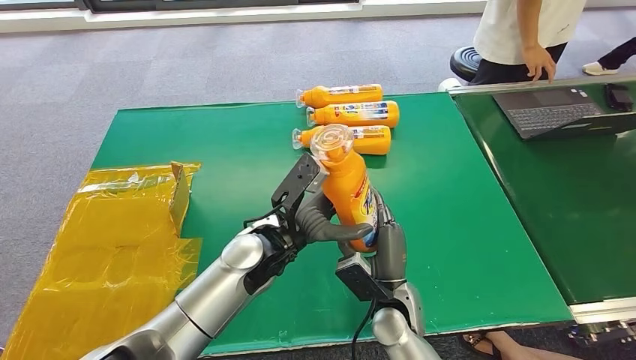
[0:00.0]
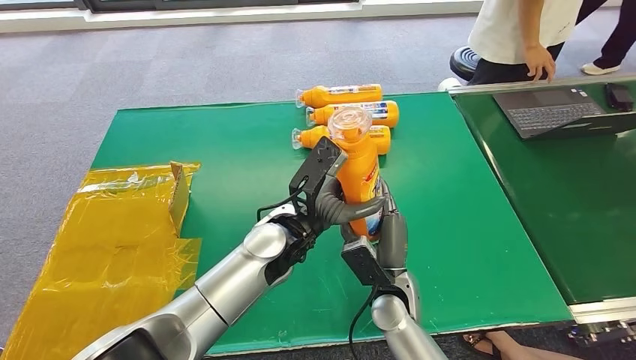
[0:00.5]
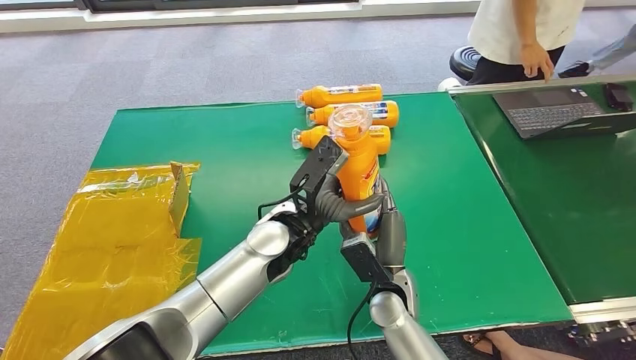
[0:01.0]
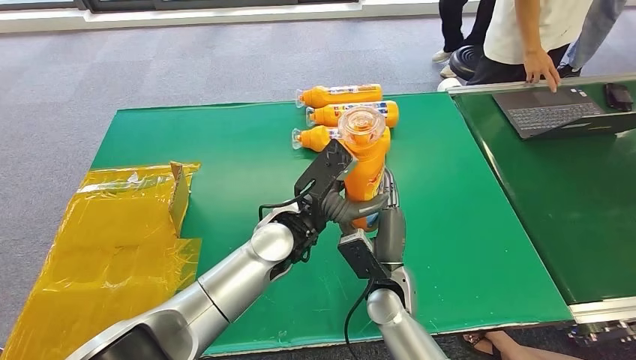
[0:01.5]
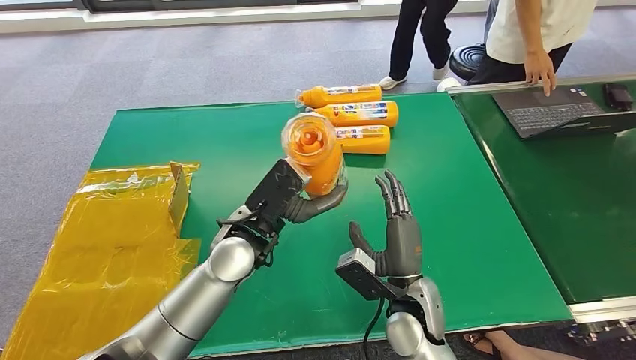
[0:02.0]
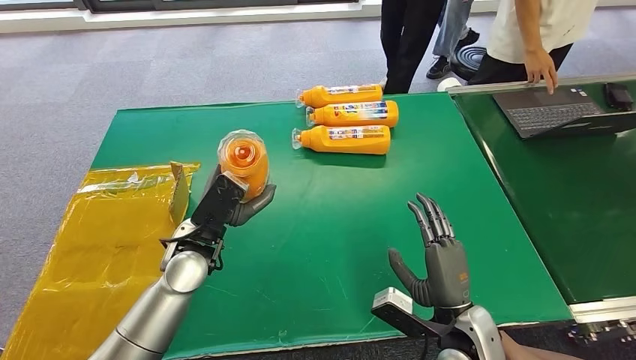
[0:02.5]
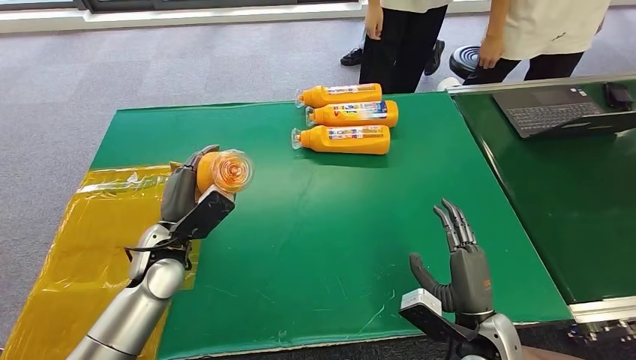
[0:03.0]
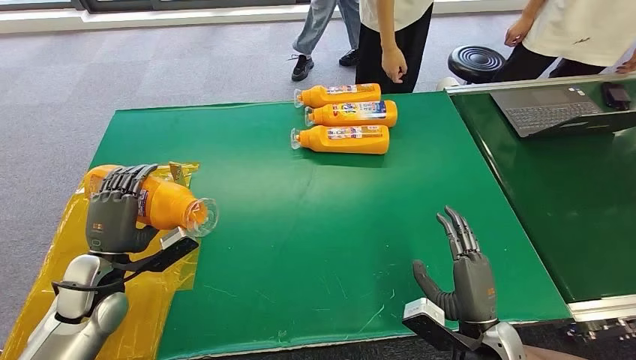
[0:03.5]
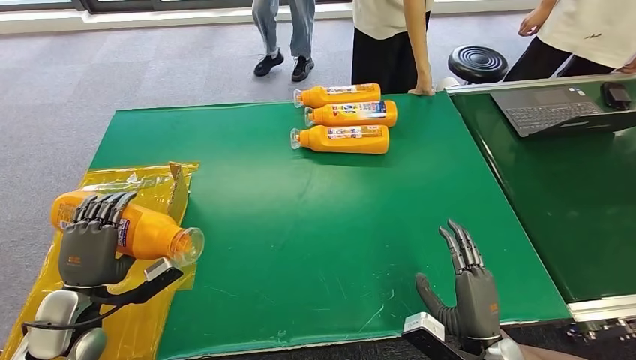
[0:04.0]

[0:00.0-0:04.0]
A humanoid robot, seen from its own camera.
Step, 0:00.0 to 0:03.5: Turn the bottle to the front side.
0:00.0 to 0:02.0: The right hand moves approximately 5 cm.

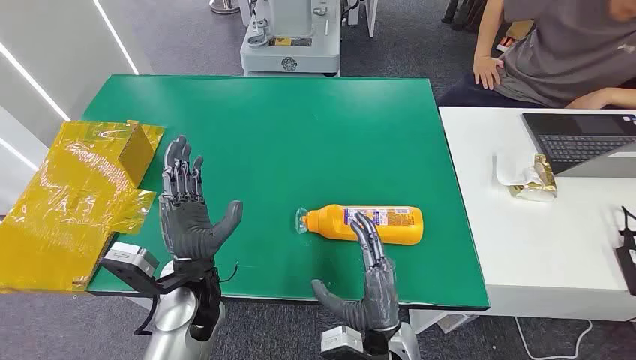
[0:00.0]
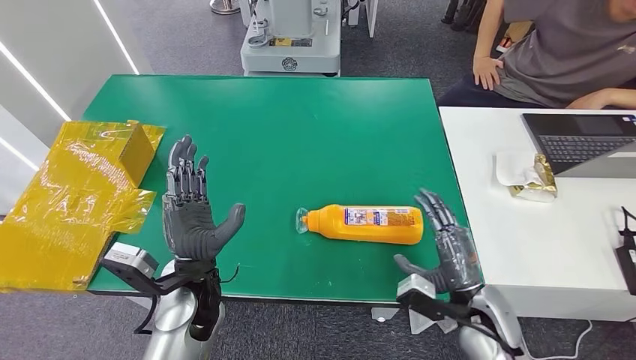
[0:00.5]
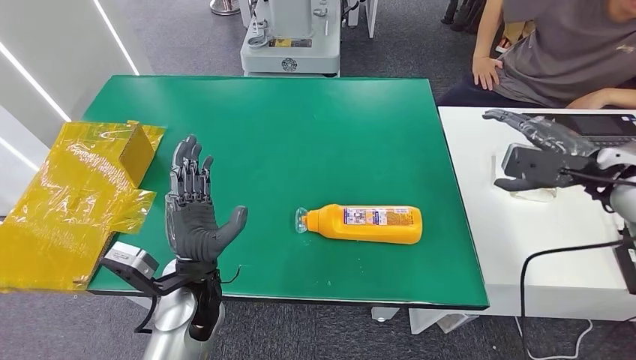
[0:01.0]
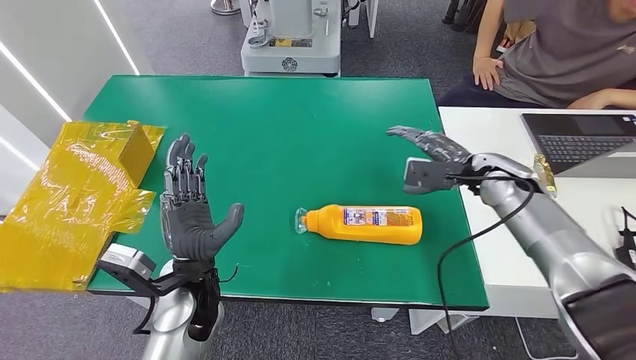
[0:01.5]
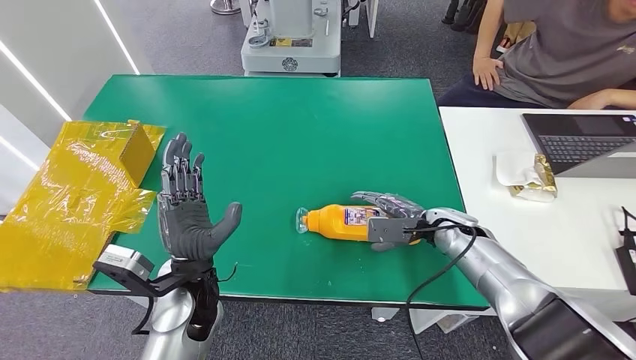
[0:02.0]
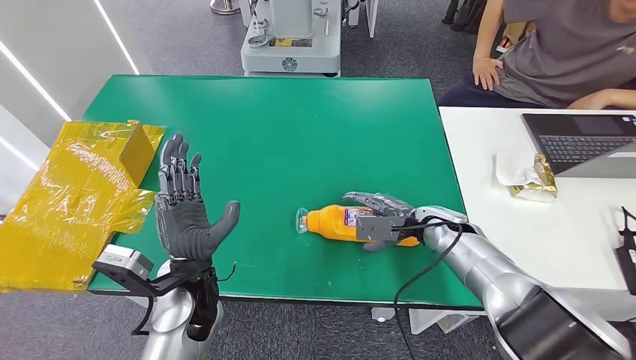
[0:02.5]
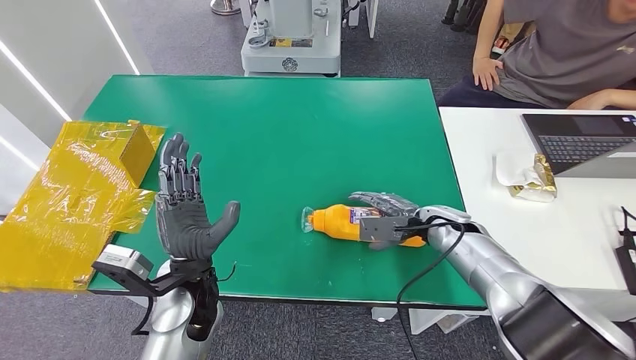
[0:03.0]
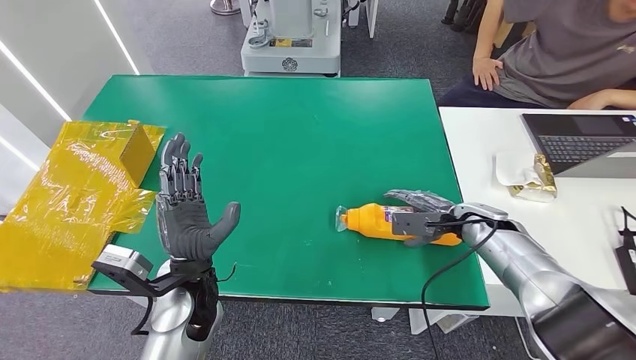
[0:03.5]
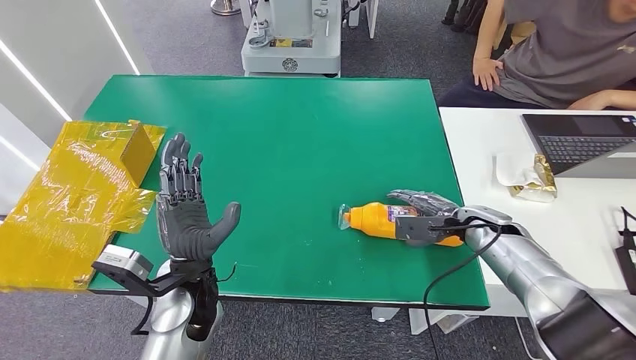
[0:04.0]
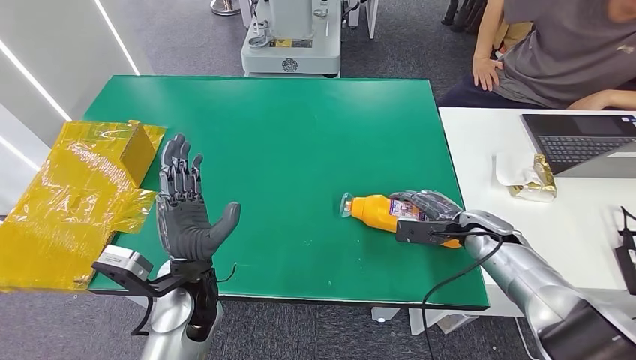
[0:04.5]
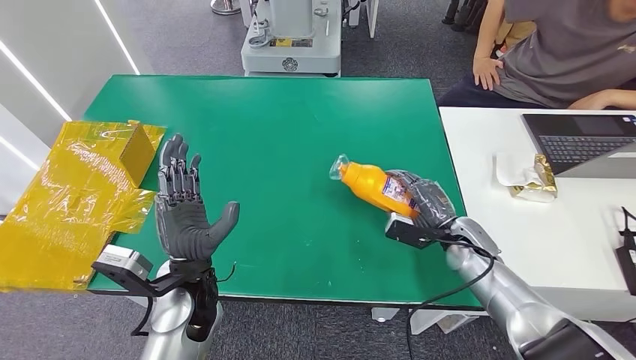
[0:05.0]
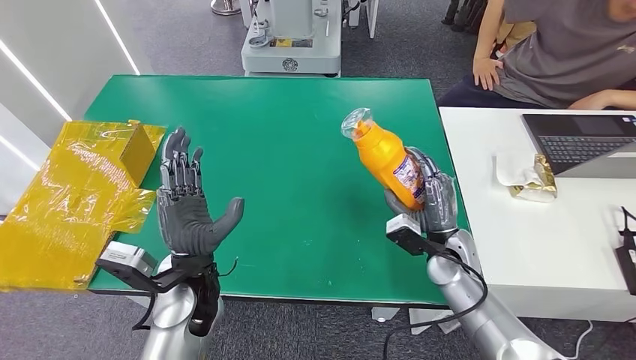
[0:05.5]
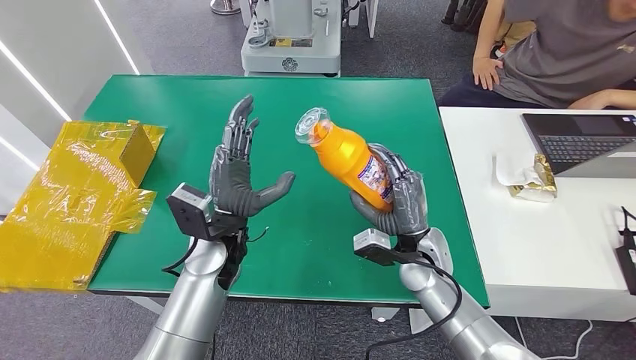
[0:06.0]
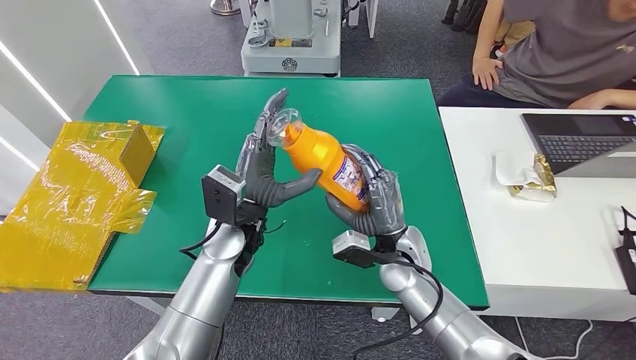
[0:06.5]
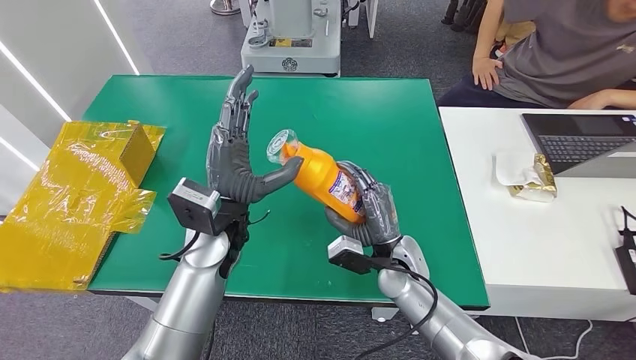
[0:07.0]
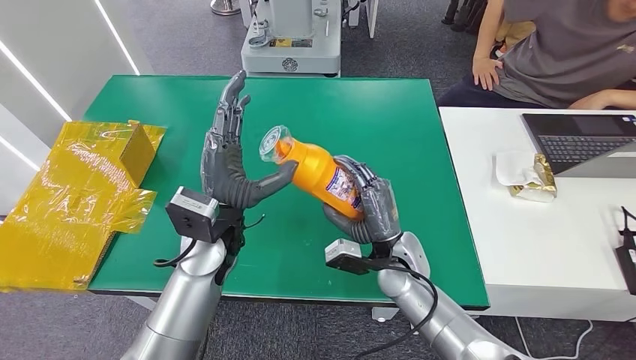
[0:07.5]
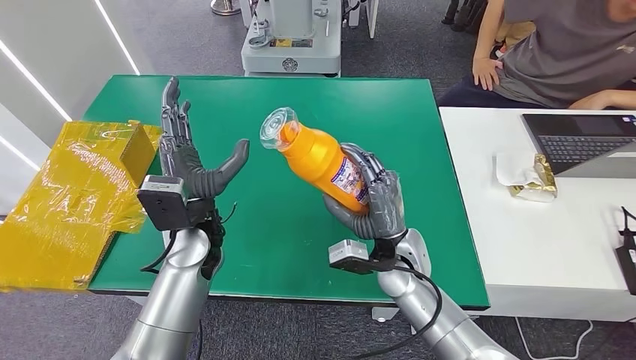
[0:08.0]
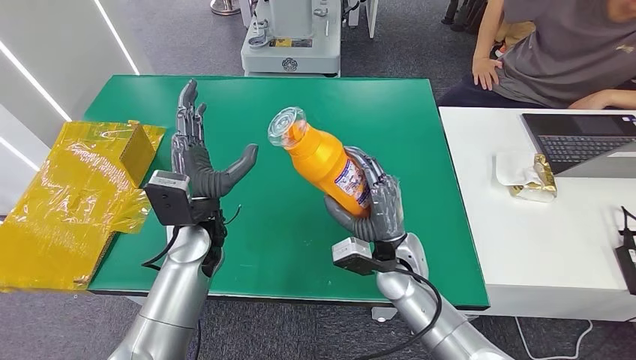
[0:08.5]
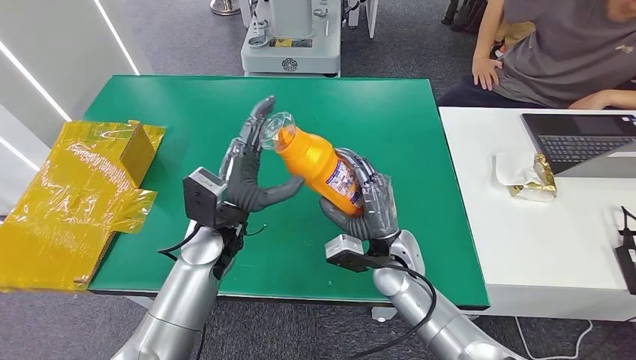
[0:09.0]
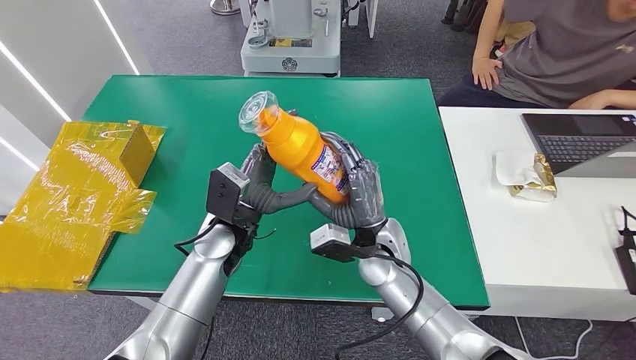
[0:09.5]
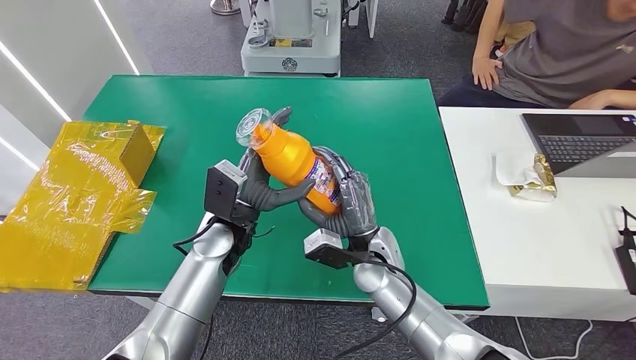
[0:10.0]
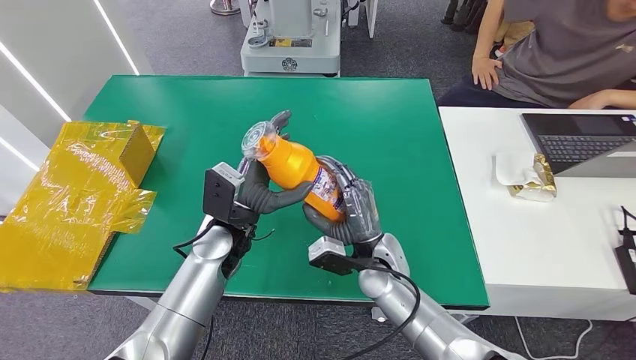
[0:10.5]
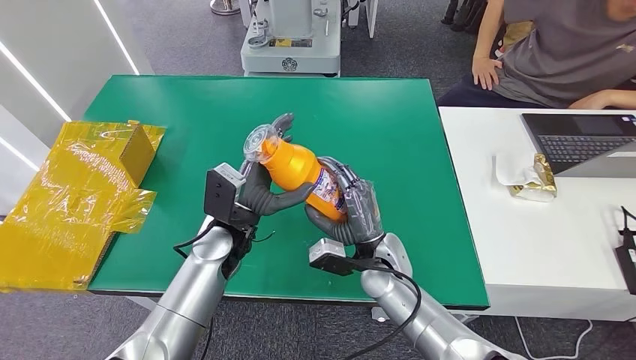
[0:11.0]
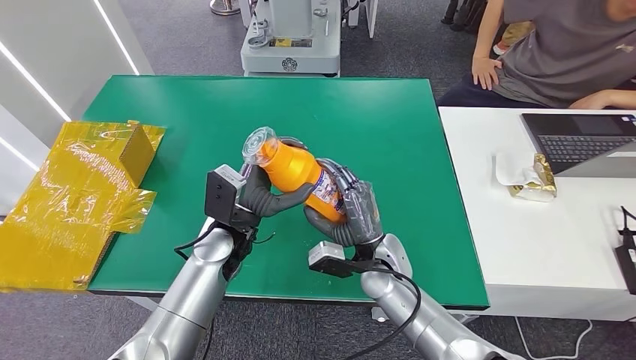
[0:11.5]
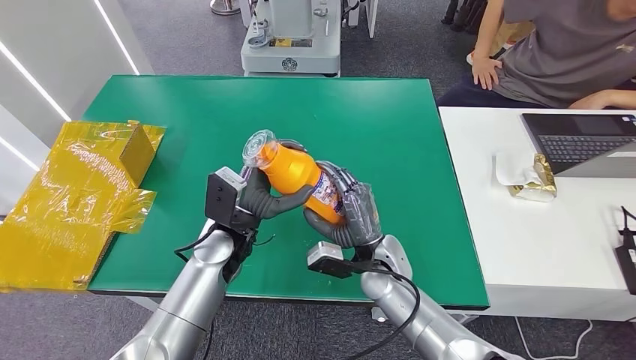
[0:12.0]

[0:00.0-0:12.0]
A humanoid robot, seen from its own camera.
Step, 0:00.0 to 0:06.5: Pick up the bottle from the table.
0:02.0 to 0:04.0: The right hand is displaced to the right by about 5 cm.
0:04.0 to 0:06.0: The left hand heads forward, covering about 5 cm, while the right hand moves to the left, approximately 15 cm.
0:06.0 to 0:08.0: The right hand shifts by roughly 5 cm.
0:10.0 to 0:12.0: The hands make only small movements.

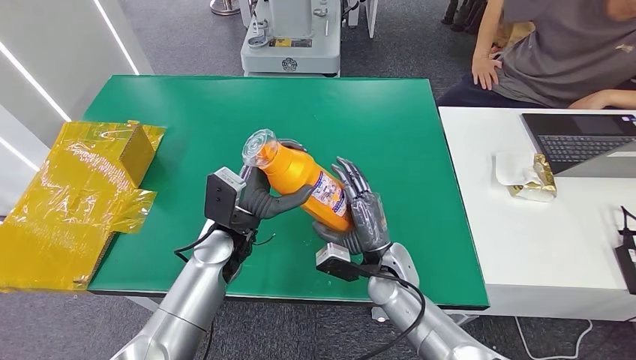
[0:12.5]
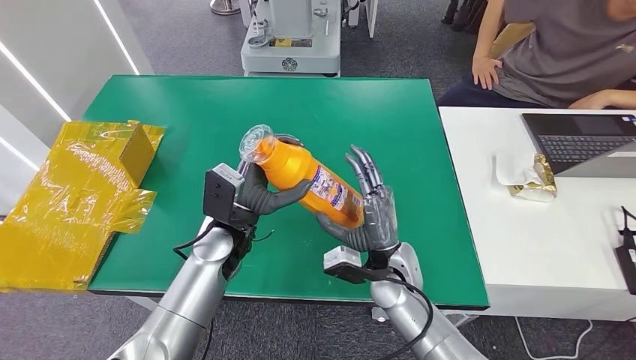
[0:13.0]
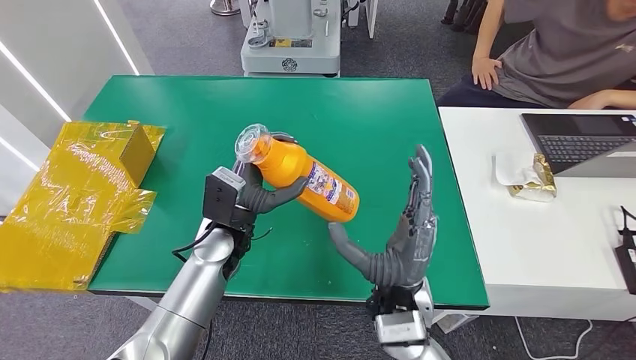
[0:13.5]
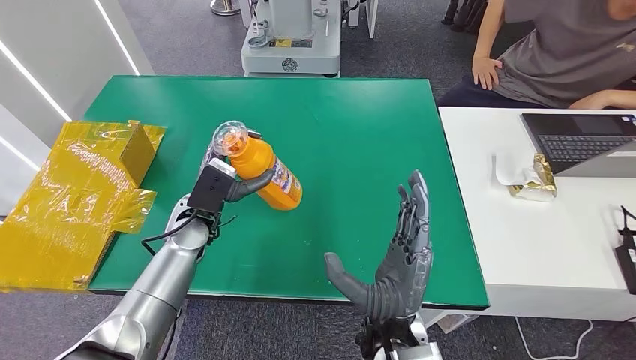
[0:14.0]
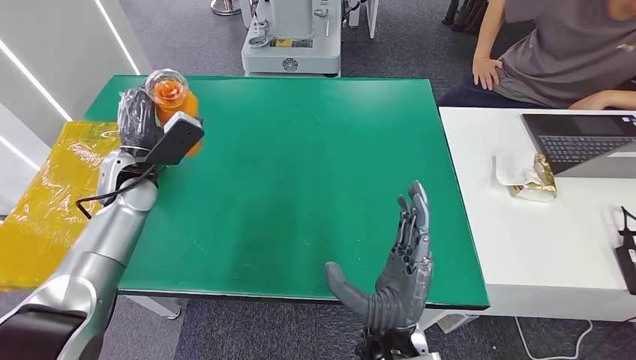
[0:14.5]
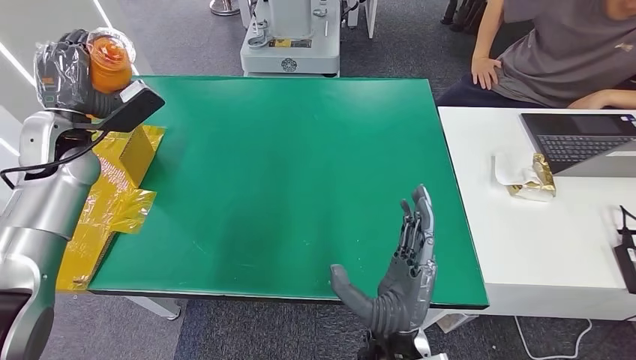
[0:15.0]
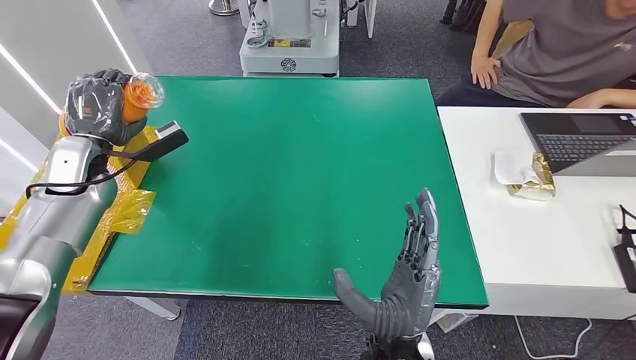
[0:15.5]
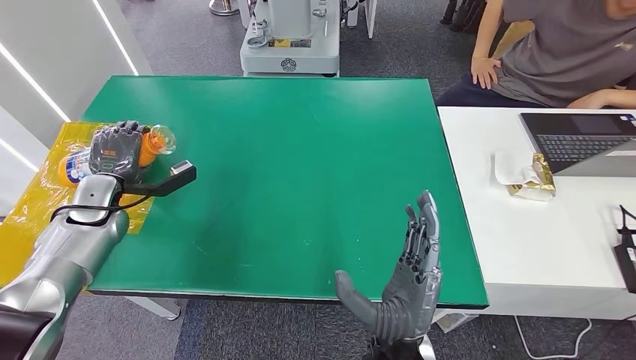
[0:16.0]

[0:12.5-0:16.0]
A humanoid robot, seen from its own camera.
0:14.5 to 0:16.0: The left hand travels to the left by some 10 cm.
